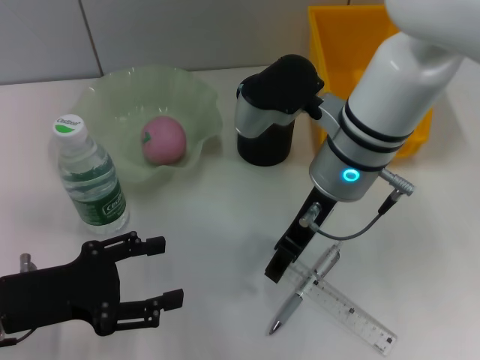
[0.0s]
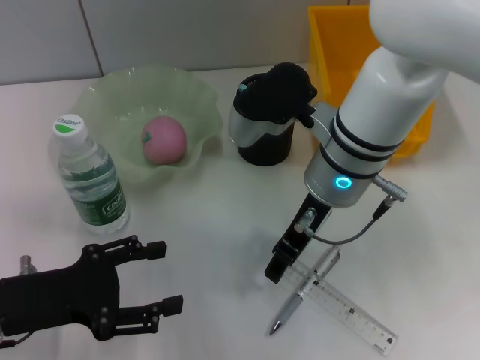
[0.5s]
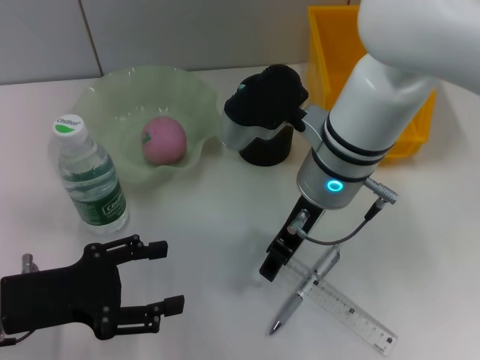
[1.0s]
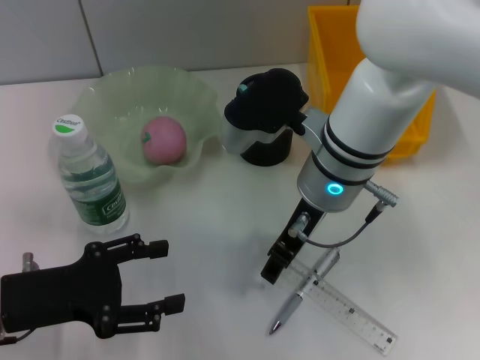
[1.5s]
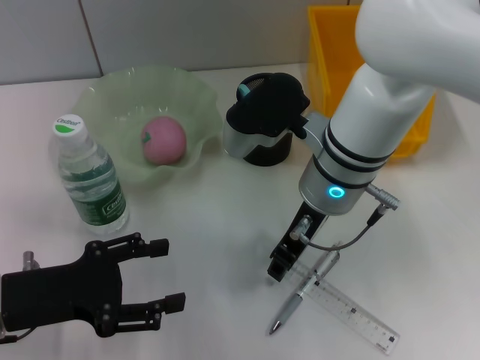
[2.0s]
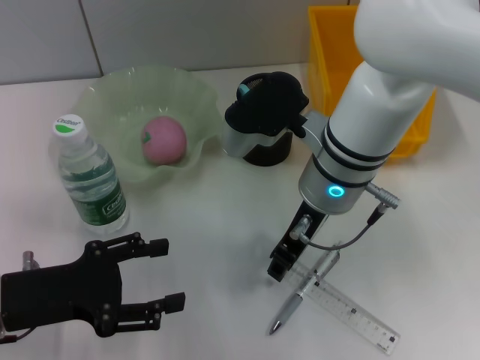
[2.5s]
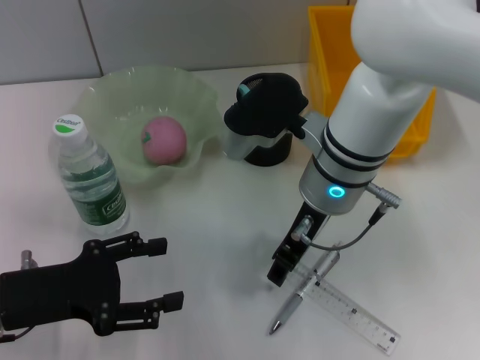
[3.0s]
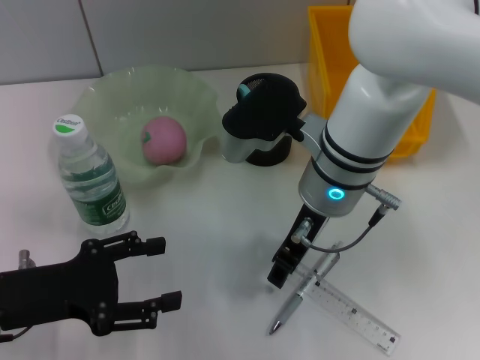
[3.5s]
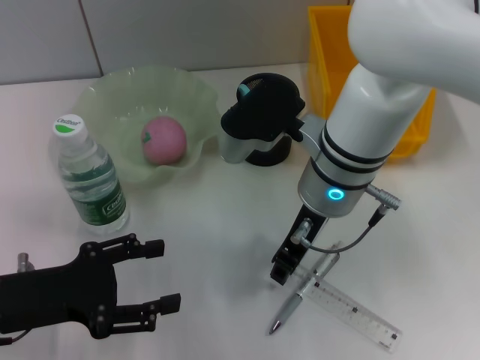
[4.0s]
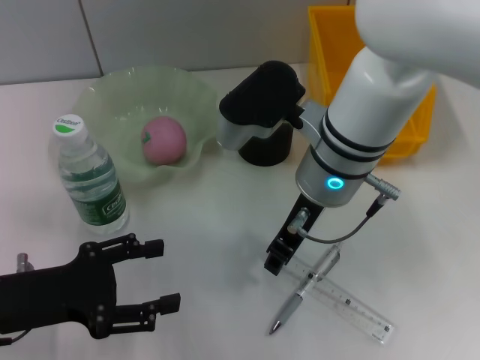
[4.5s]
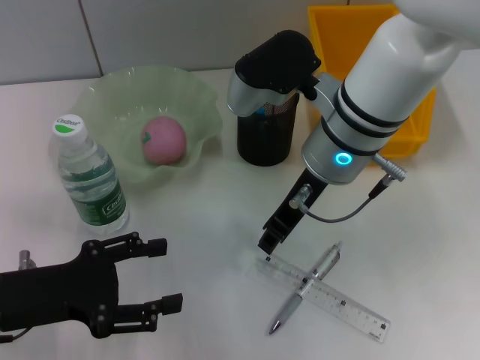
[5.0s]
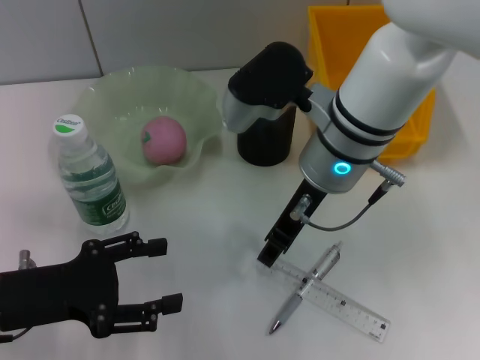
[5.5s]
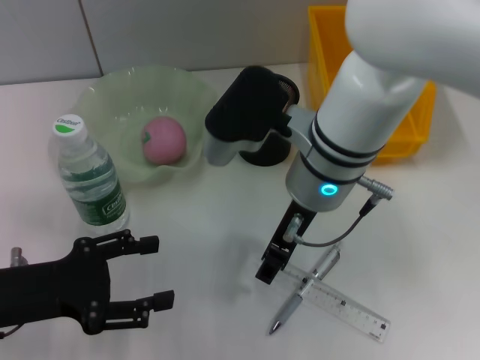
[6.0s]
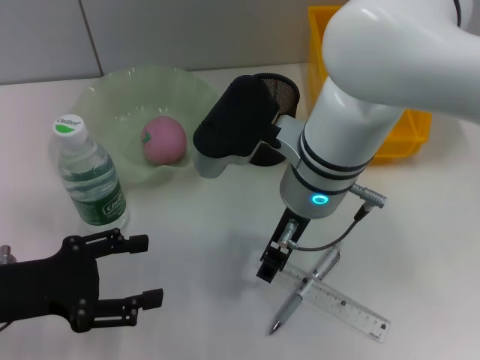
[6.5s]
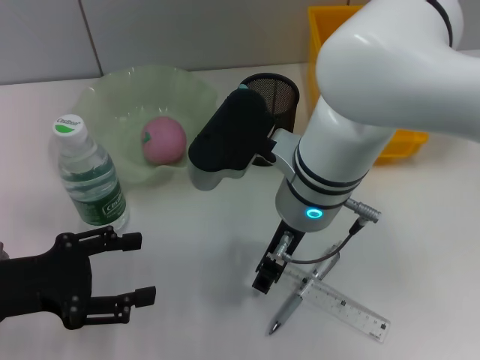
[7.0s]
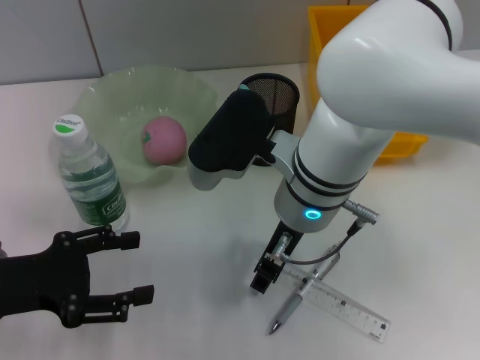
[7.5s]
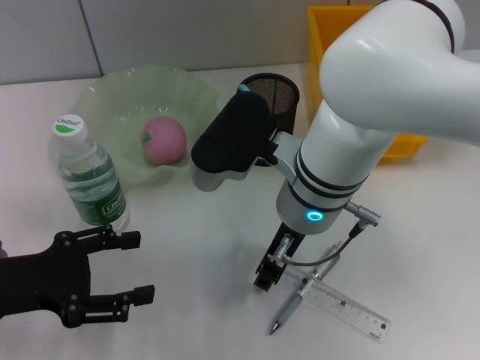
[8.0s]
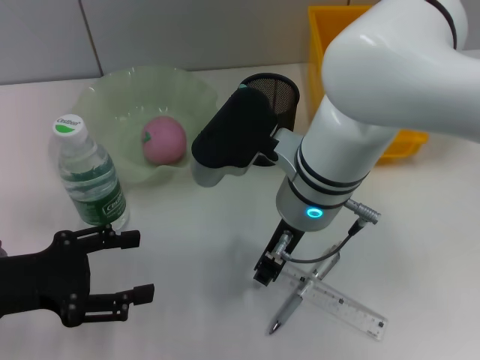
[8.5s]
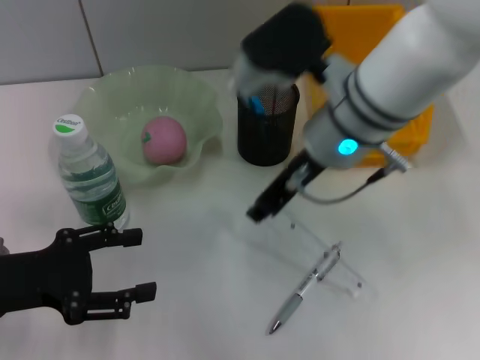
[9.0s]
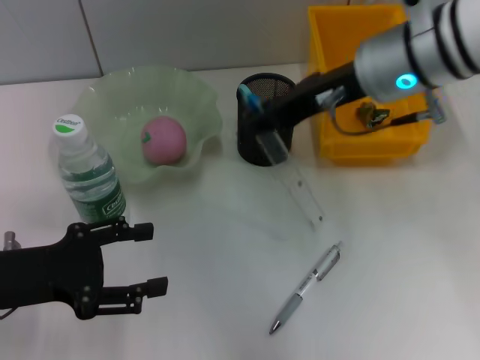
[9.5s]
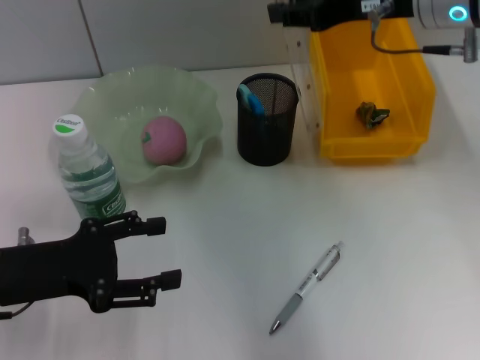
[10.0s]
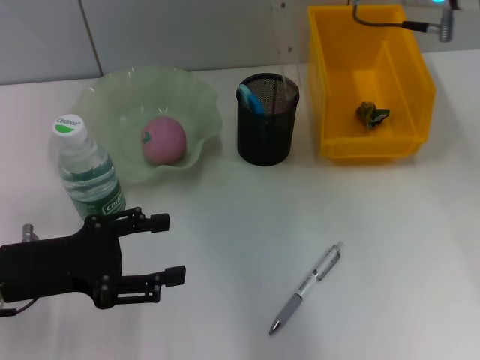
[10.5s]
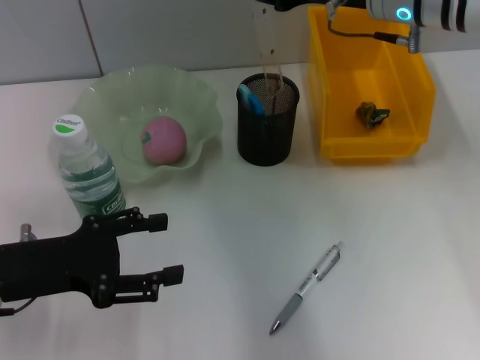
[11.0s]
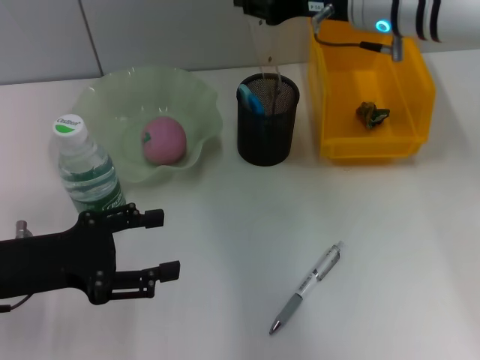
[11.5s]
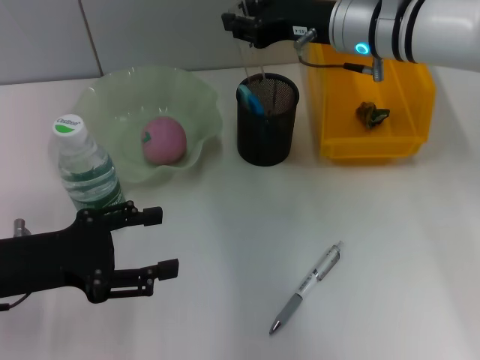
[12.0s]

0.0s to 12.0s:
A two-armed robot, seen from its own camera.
Step, 0.0s to 8.0s: Grab the ruler with the right hand.
0.0s to 2.0s: The grippers move only a little.
2.0s to 4.0s: Both grippers stay put.
4.0s to 6.0s: The right gripper opens up.
8.0s to 10.0s: The right gripper moves to the right, upward and forward, about 20 cm.
10.0s to 12.0s: The right gripper travels downward and forward by roughly 10 cm.

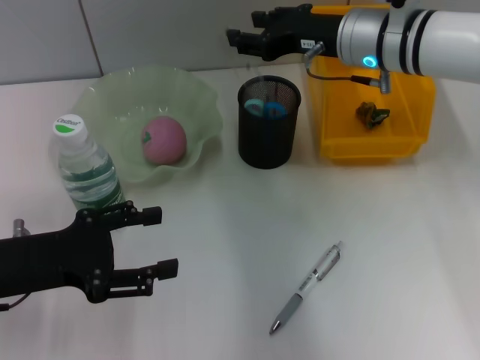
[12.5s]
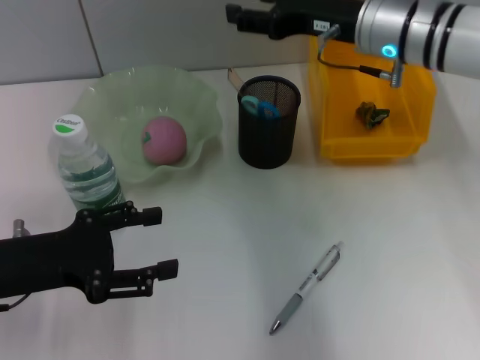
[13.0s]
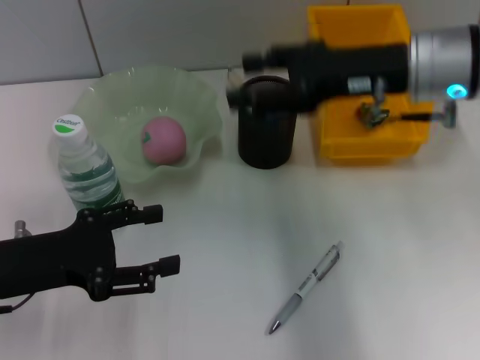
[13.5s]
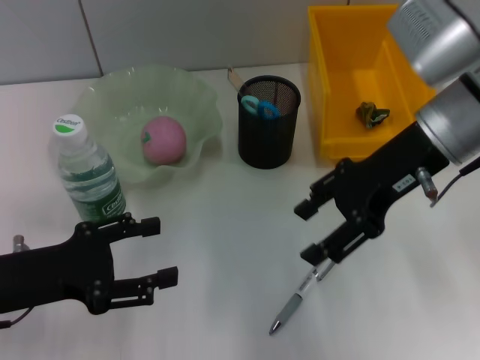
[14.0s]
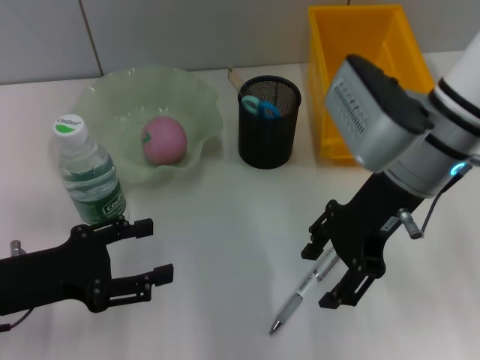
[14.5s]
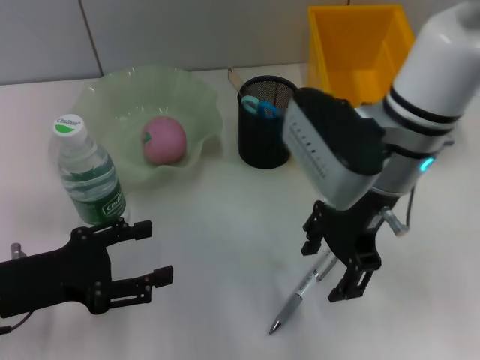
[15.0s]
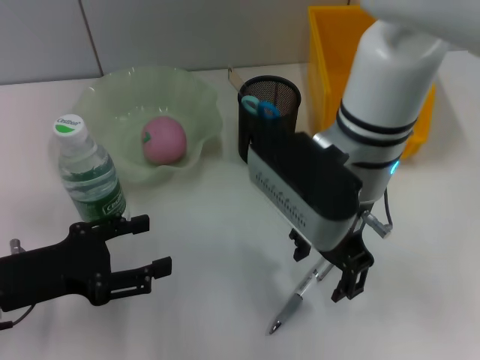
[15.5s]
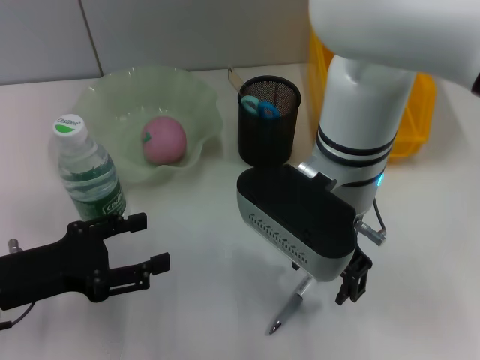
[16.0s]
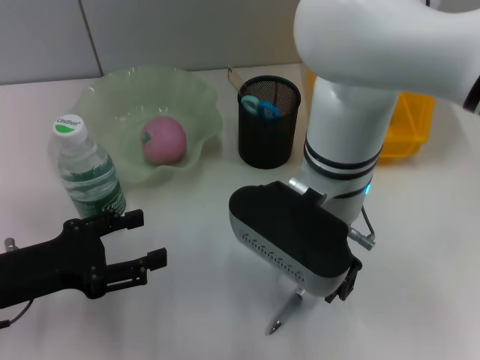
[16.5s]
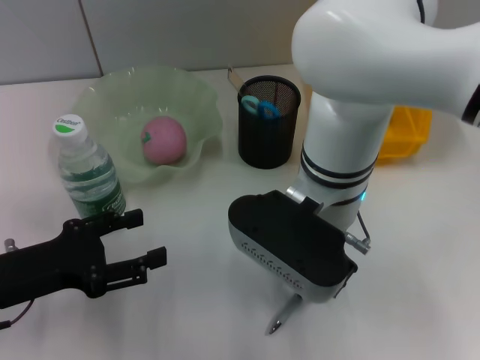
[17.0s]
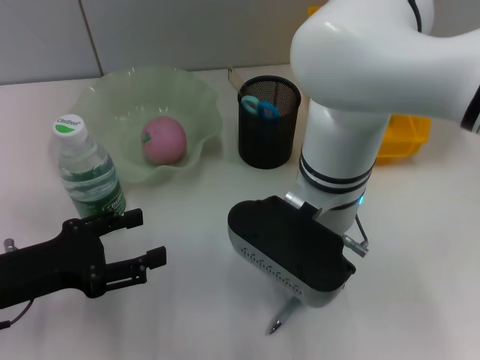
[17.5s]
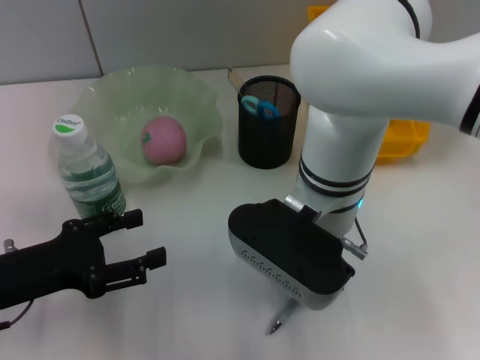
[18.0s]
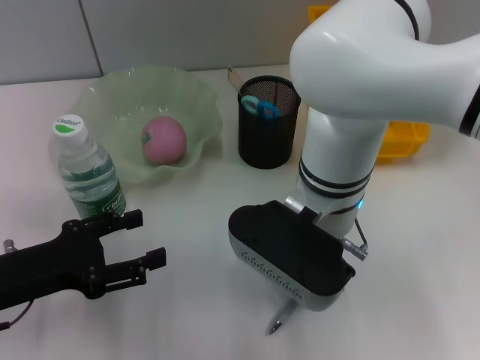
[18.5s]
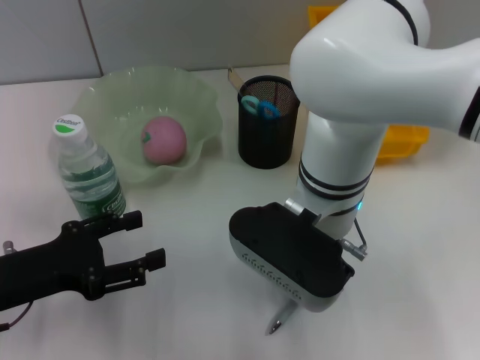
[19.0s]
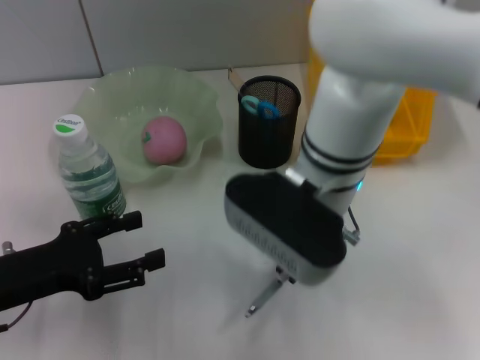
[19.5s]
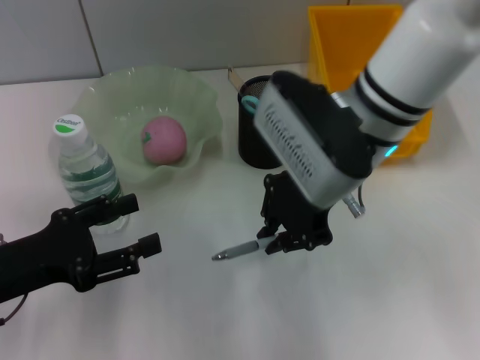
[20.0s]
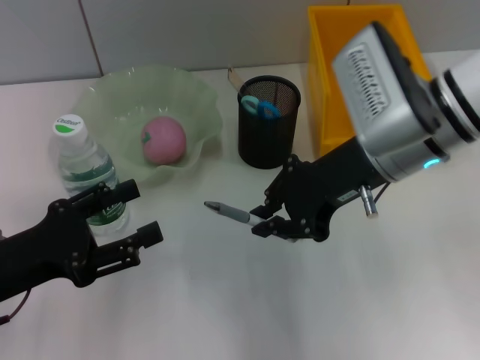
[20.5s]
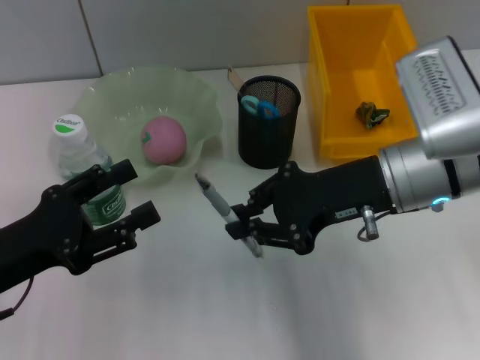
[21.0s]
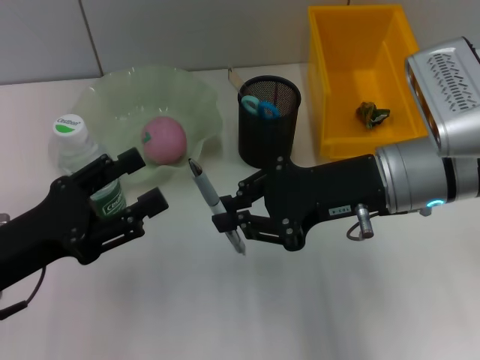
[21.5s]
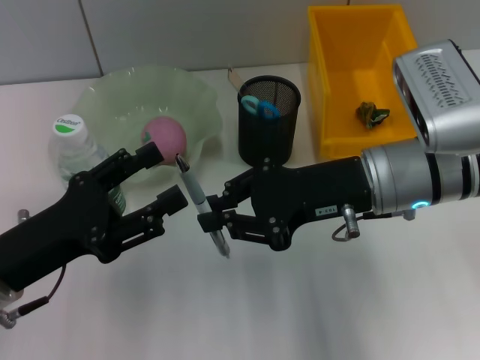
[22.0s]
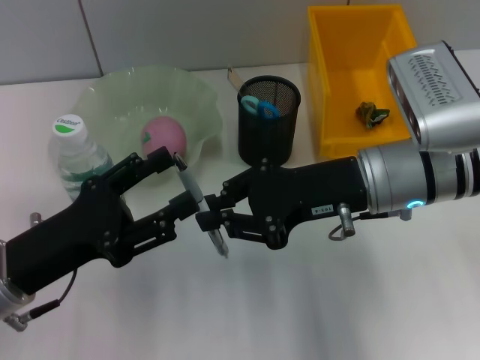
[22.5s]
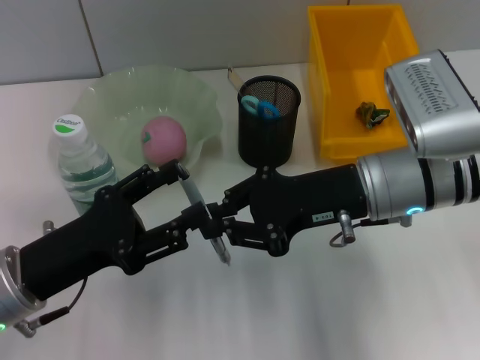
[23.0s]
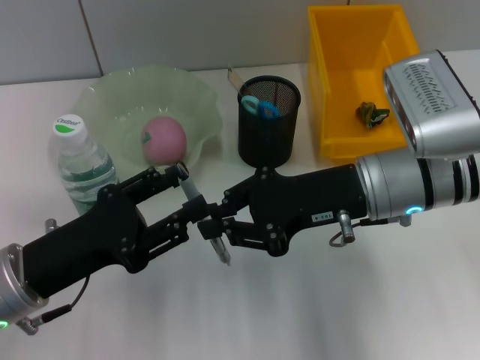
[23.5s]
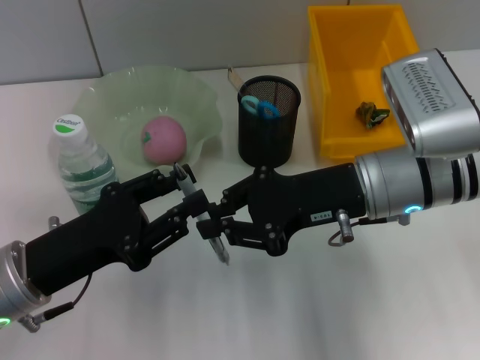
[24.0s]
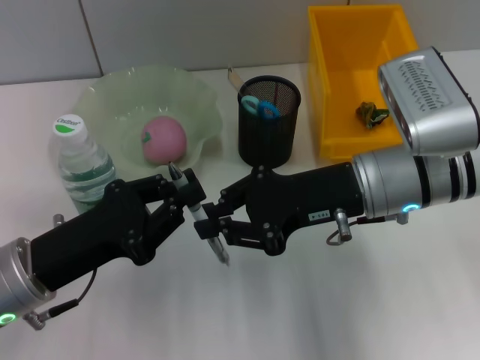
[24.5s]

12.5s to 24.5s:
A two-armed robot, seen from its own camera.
Step, 13.0s to 19.0s: Grab the gray spring-action pen with the right hand.
12.5s to 14.5s: The right gripper is displaced backward by approximately 10 cm, and opens up.
14.5s to 16.5s: The right gripper goes some 10 cm to the left.
16.5s to 18.5s: The right gripper closes its fingers.
18.5s to 20.5s: The right gripper goes approximately 10 cm to the right.
22.5s to 24.5s: The left gripper closes.

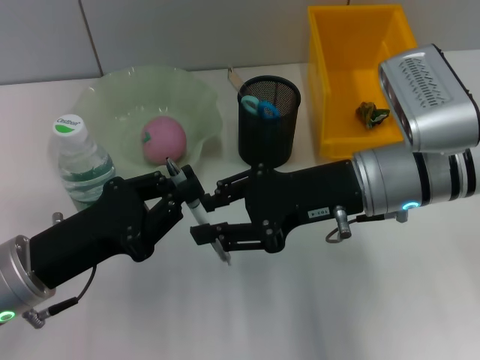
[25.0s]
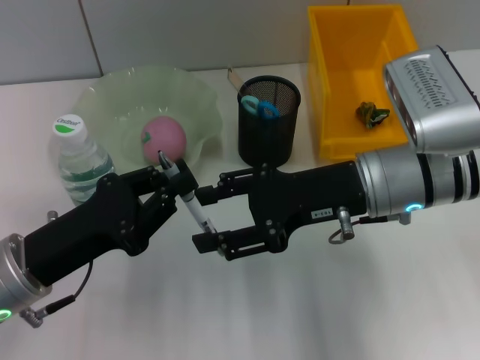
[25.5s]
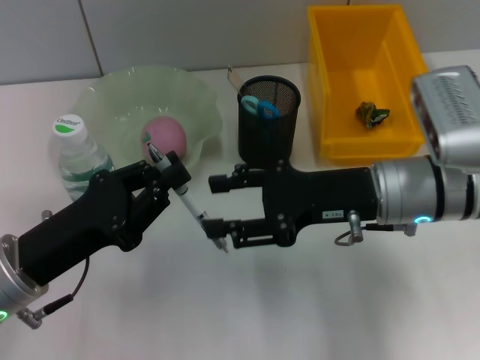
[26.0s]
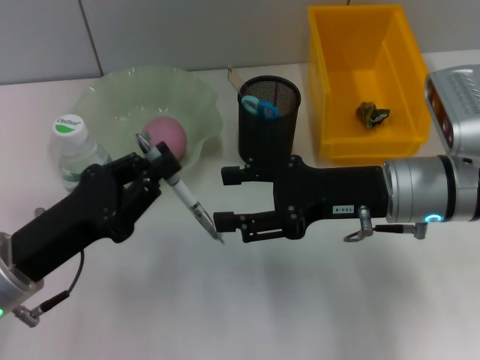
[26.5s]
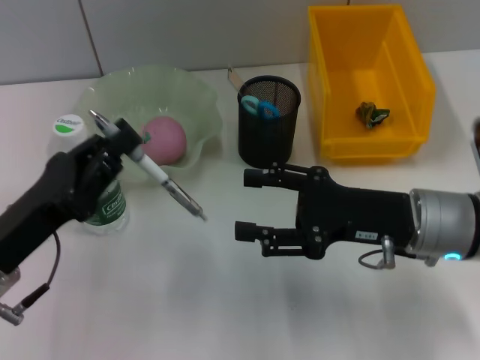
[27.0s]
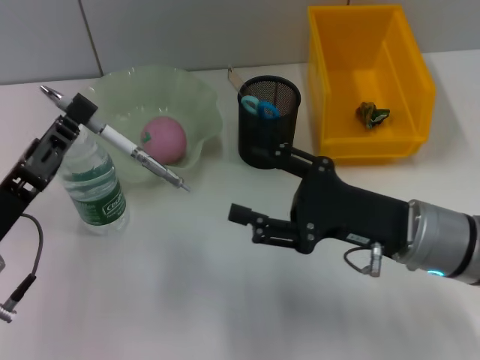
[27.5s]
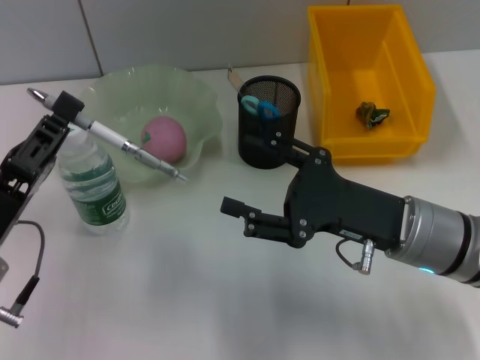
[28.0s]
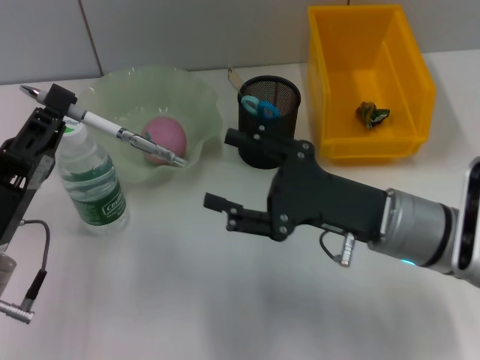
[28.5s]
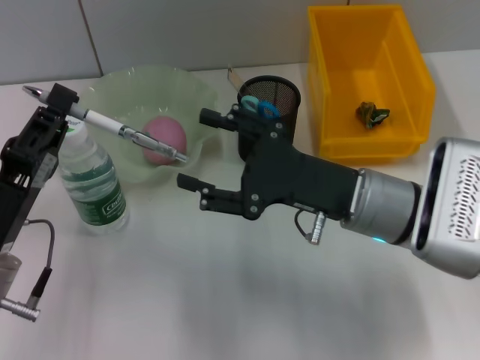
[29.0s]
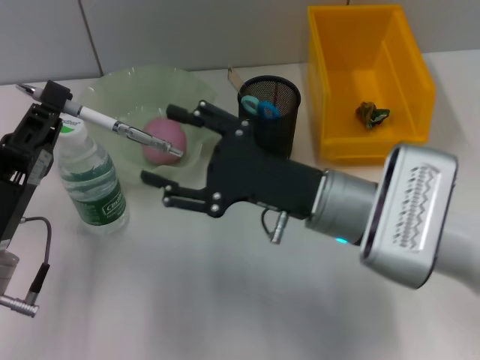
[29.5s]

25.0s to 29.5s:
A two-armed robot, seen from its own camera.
25.0s to 27.0s: The right gripper ends up about 10 cm from where it was, and opens.
27.0s to 29.5s: The right gripper moves to the left, some 10 cm.
